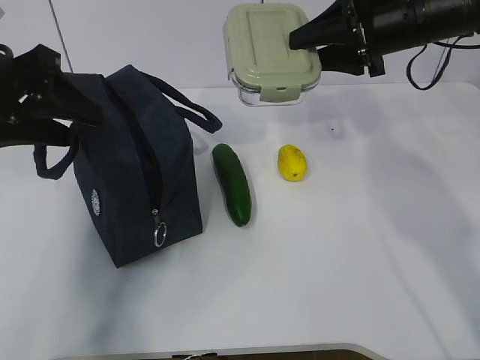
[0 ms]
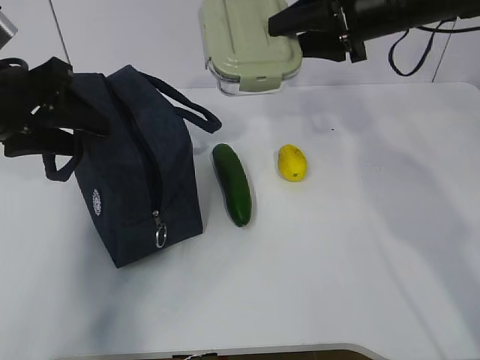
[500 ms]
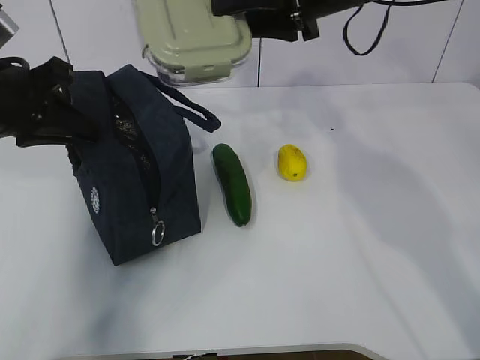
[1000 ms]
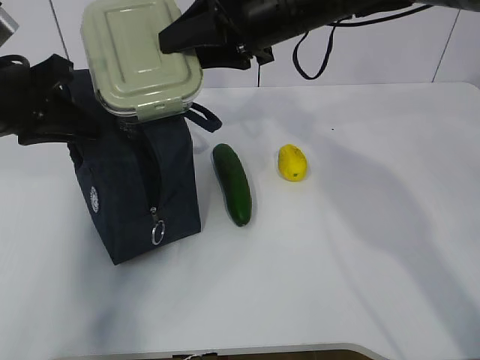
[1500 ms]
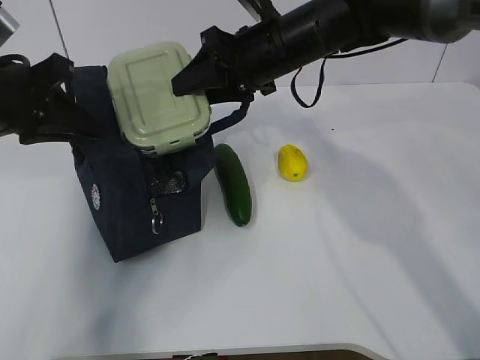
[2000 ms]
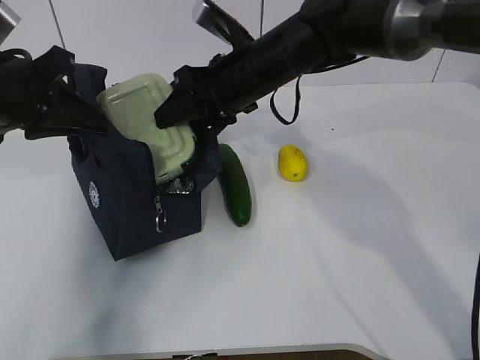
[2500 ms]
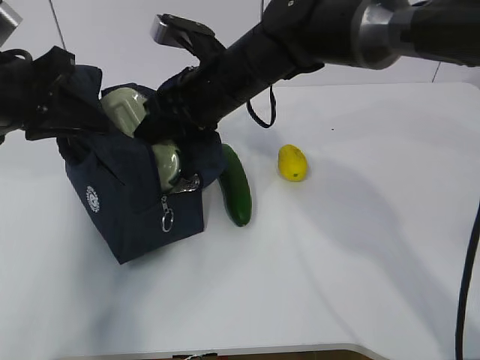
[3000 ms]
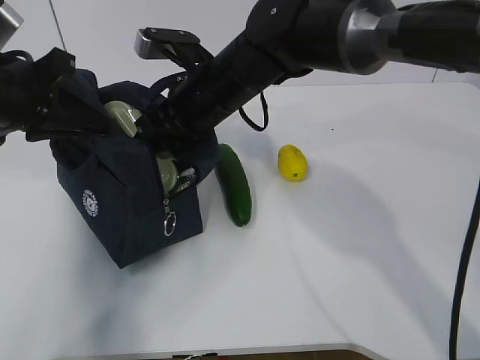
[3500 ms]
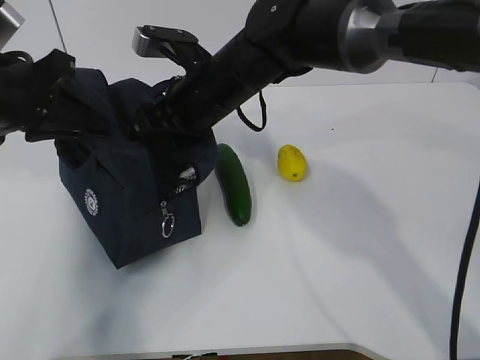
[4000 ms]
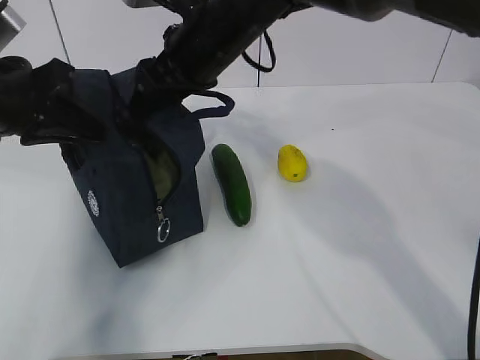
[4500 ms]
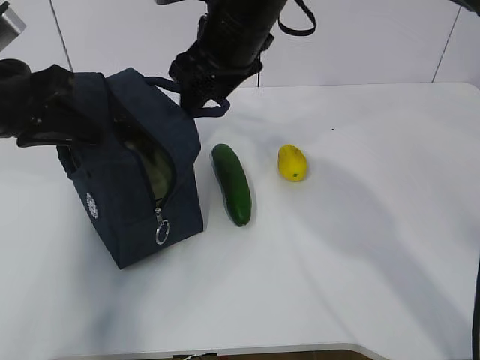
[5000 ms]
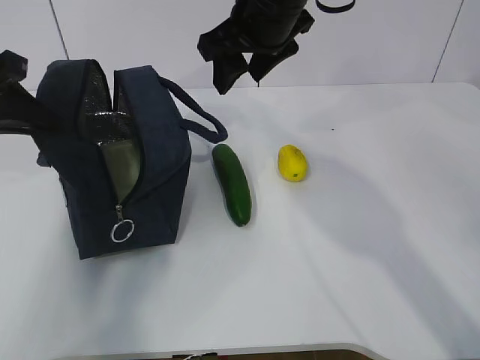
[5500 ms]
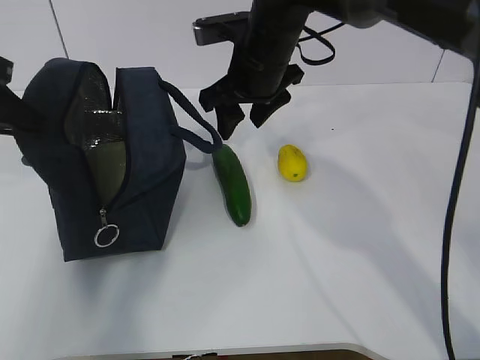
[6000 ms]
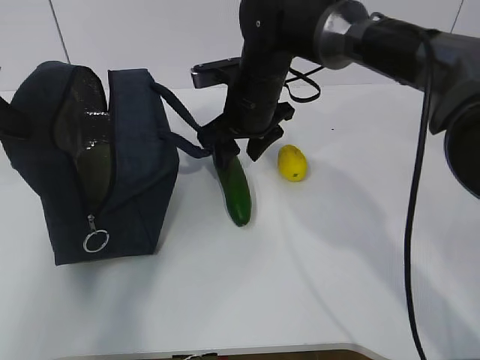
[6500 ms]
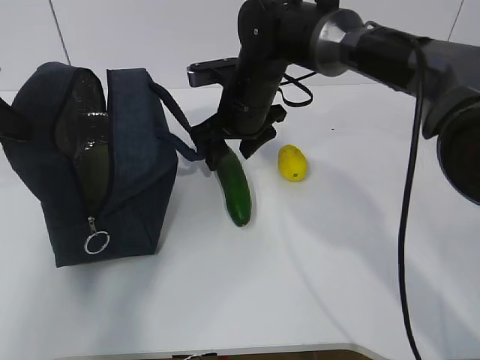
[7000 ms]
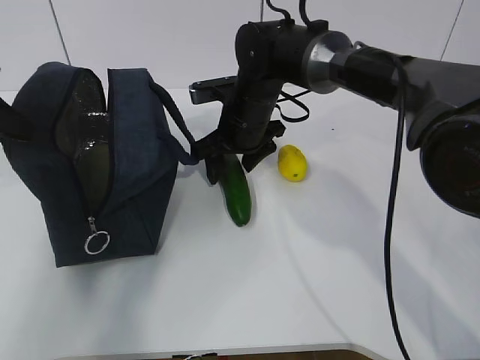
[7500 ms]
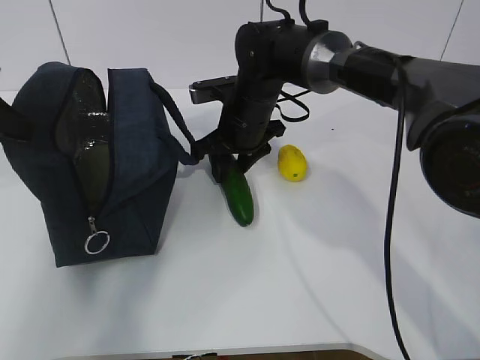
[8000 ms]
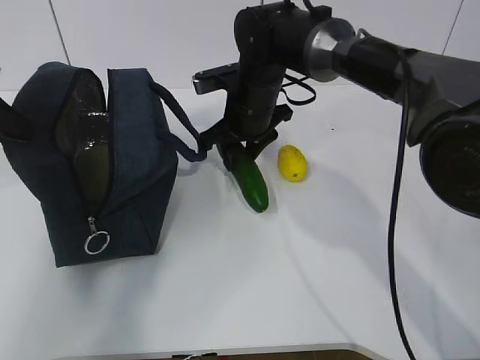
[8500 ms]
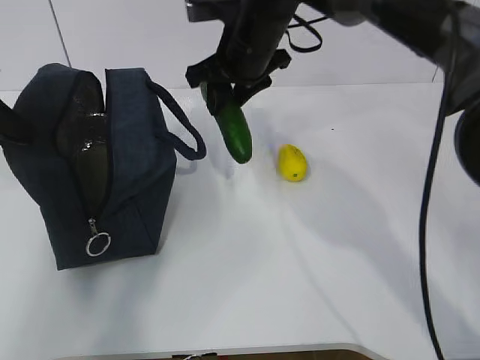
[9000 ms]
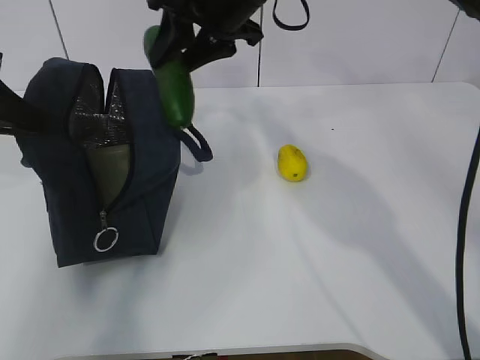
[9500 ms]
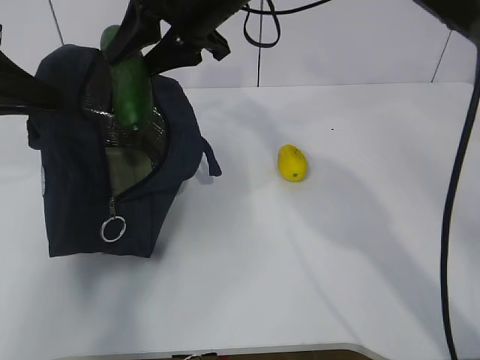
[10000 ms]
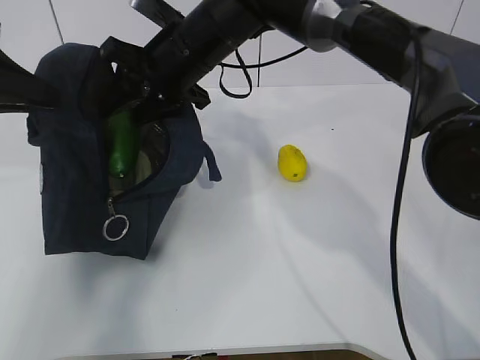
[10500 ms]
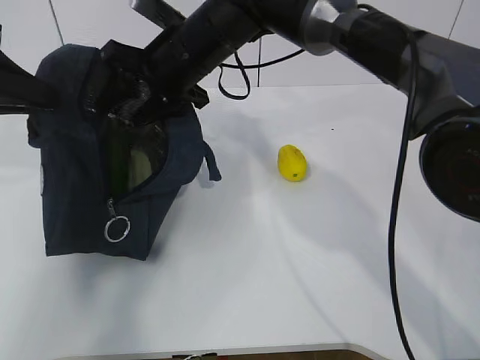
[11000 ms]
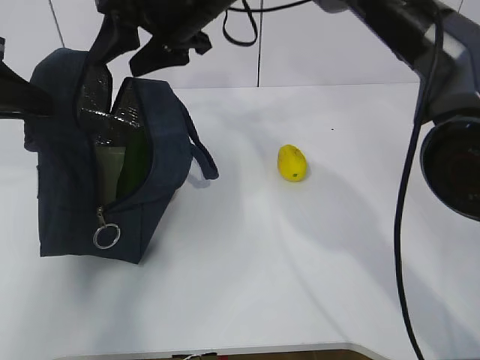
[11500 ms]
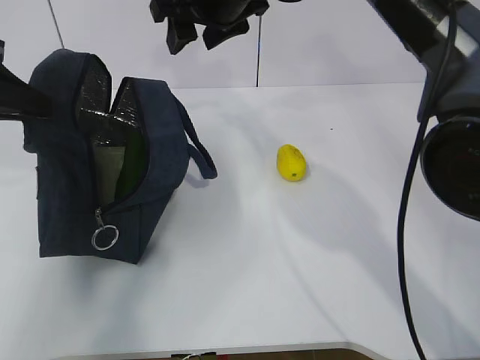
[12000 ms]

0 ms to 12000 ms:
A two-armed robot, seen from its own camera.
Step, 1000 ms to 4000 ms: Grab the cucumber with your right hand.
Step, 4500 ms to 6500 ms: Place it into the bag with your right hand.
Step, 7000 ms to 10500 ms: Grab the lemon with your right hand.
0 ms to 2000 ms: The right gripper heads to the left, covering roughly 15 cm. The left gripper closes.
2000 ms to 4000 ms: The right gripper travels to the left by about 10 cm.
4000 ms to 6000 ms: The left gripper travels to the left by about 5 cm. The right gripper goes roughly 5 cm to the right, and reaches some 10 cm upward, then returns.
6000 ms to 8000 ms: The right gripper heads downward, covering about 10 cm.
8000 ms to 10000 ms: The right gripper goes roughly 15 cm upward.

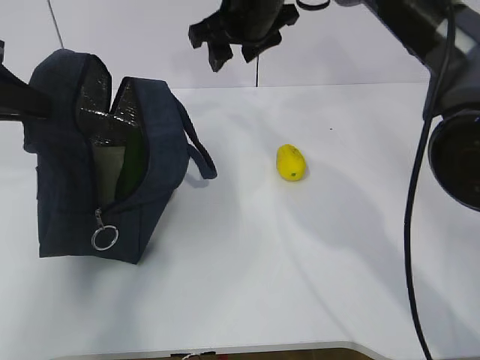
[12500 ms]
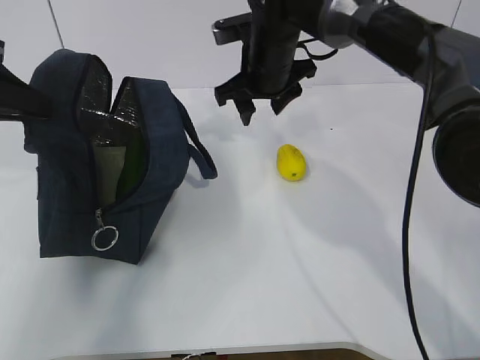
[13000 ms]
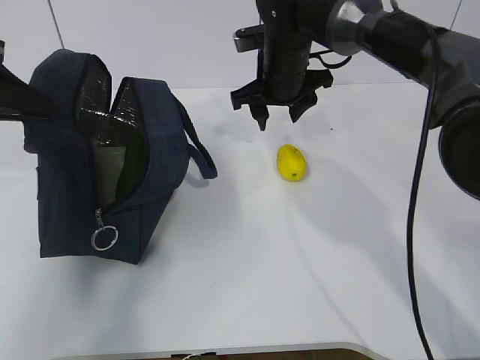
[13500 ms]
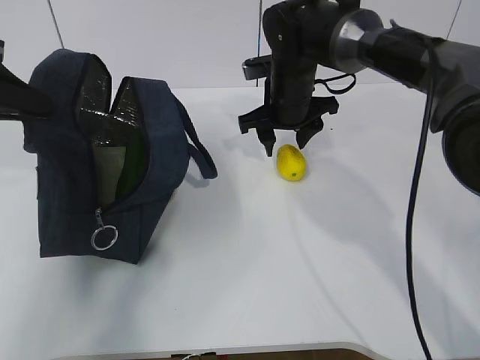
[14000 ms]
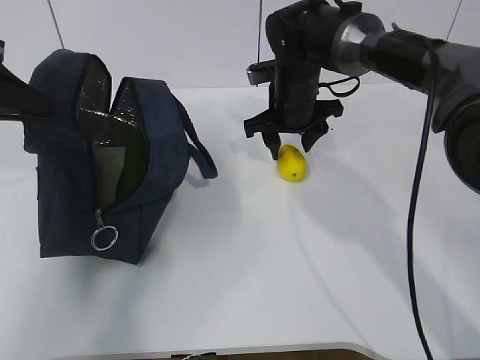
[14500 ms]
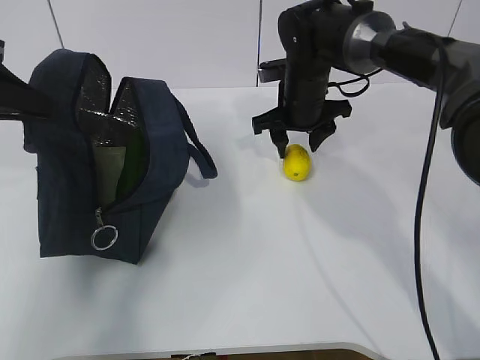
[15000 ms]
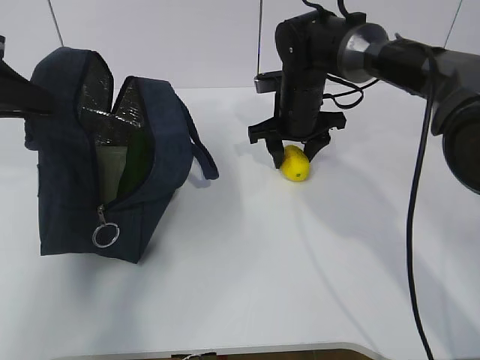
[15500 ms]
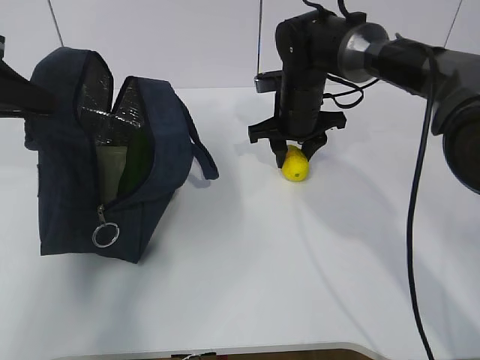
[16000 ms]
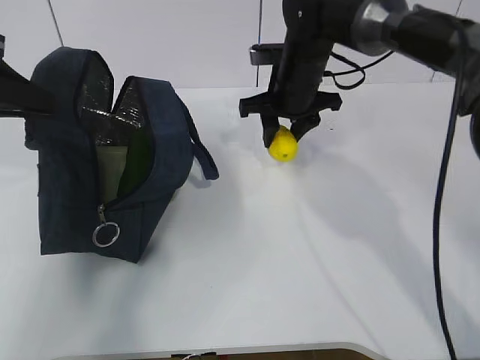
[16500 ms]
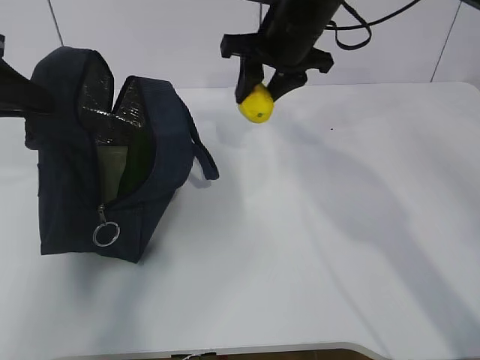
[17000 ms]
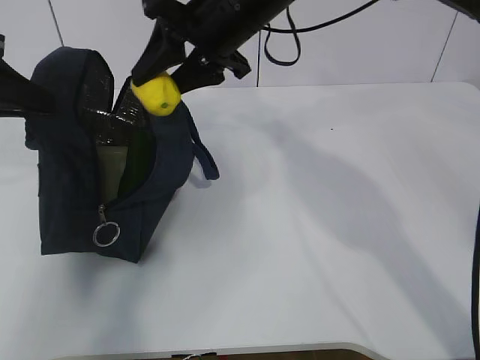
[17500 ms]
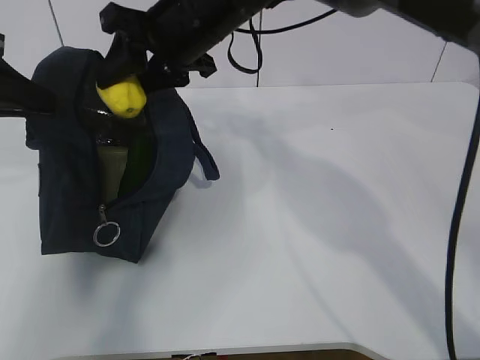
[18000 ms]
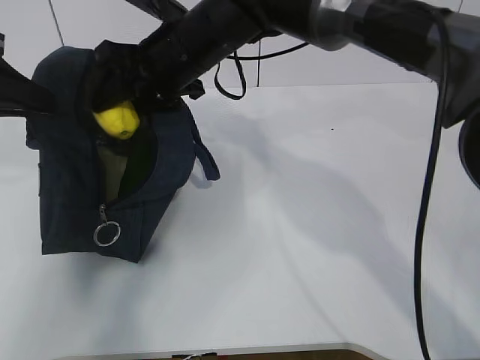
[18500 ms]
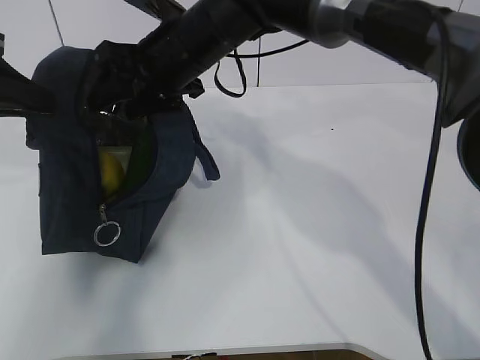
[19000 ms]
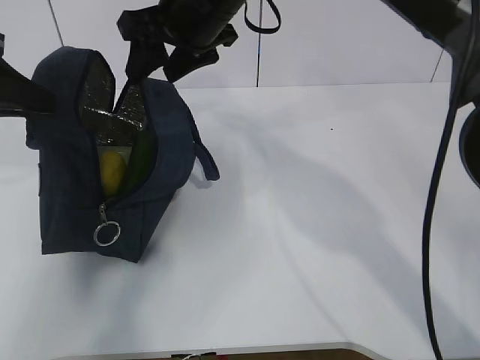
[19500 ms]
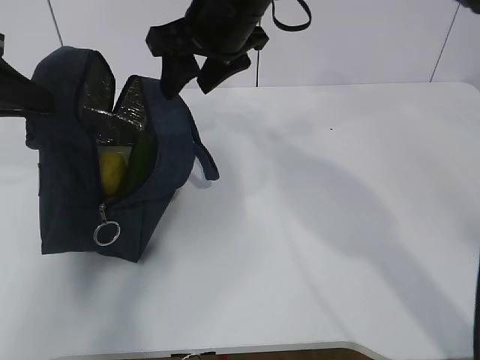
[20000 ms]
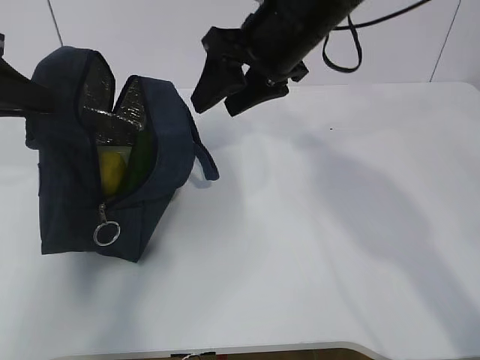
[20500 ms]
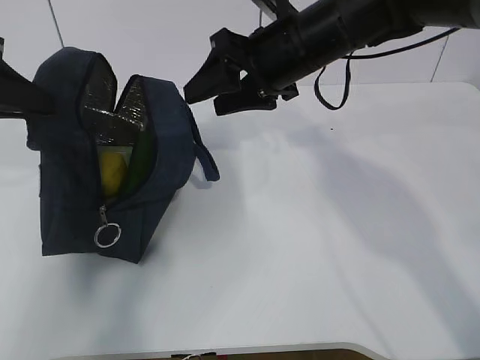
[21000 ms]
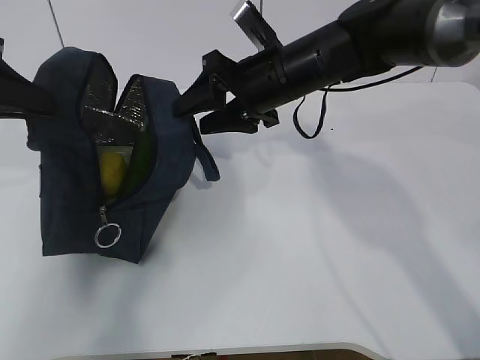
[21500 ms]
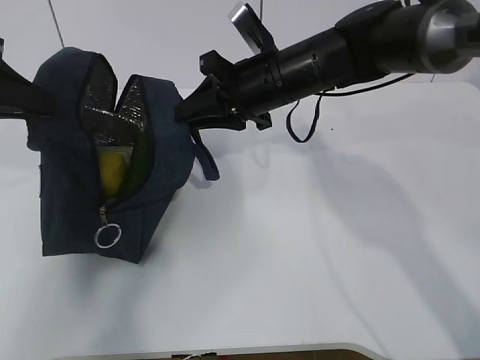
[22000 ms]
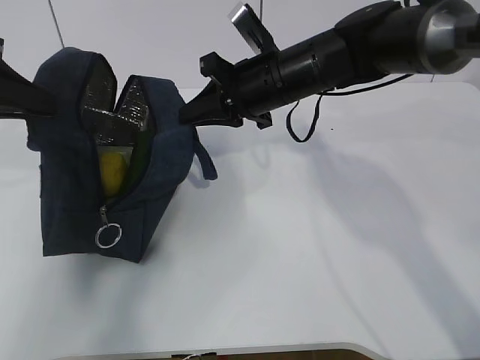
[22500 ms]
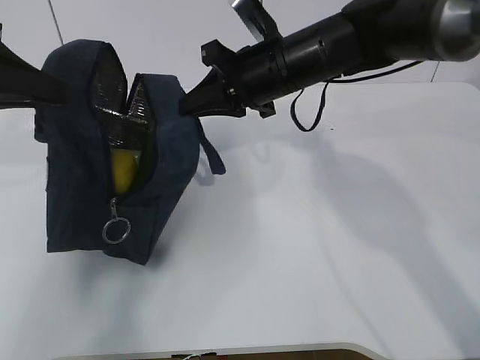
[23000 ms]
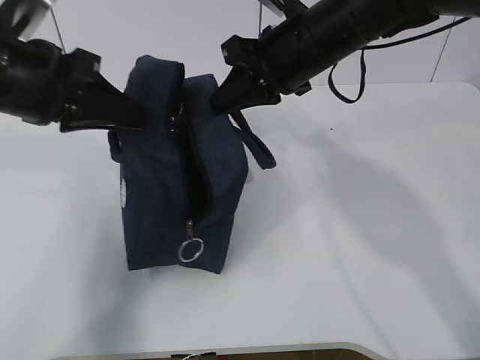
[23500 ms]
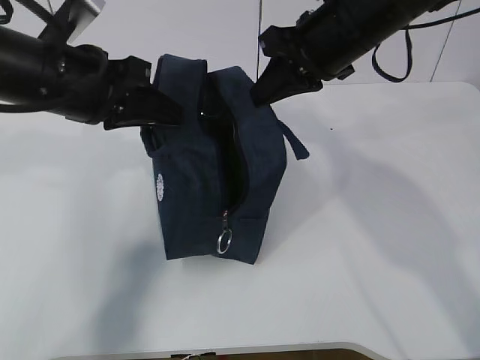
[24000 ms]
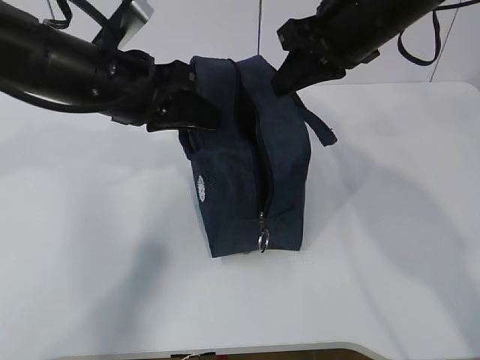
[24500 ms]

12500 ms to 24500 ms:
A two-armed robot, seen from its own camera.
Step, 13500 ms to 15500 ms: Grab the lunch bag with your right hand.
Step, 16500 ms to 18500 ms: Move the lunch bag to the right.
12500 ms to 14500 ms: The right gripper moves downward and to the right, roughly 15 cm.
14500 ms to 16500 ms: The grippers move only a little.
16500 ms to 18500 ms: The right gripper shifts roughly 15 cm to the left, upward and backward.
18500 ms to 20500 ms: The right gripper shifts about 10 cm to the right.
20500 ms to 22500 ms: The right gripper travels downward by roughly 5 cm, and closes.
22500 ms to 24500 ms: The right gripper travels upward and to the right by about 10 cm; the left gripper travels to the right by roughly 15 cm.

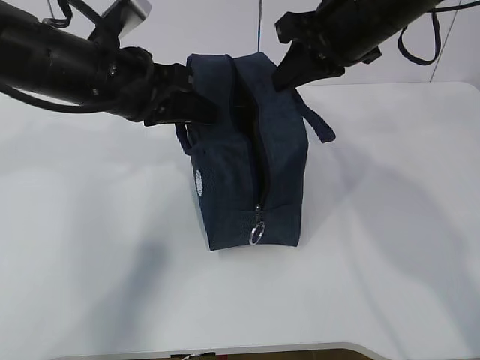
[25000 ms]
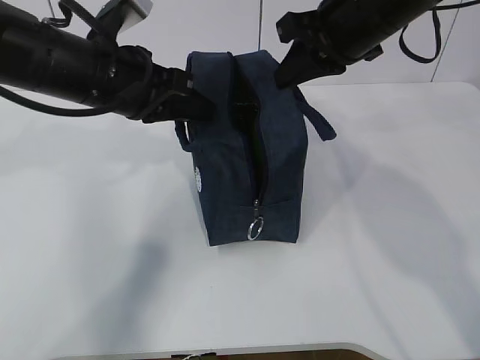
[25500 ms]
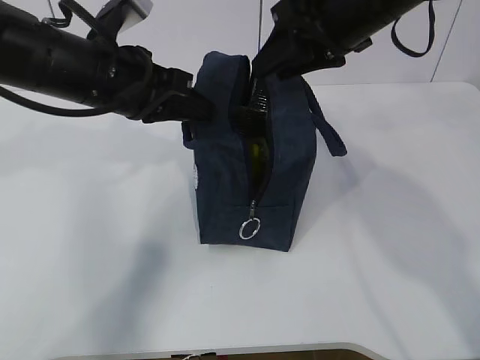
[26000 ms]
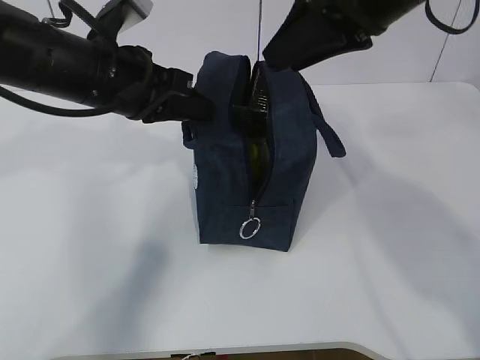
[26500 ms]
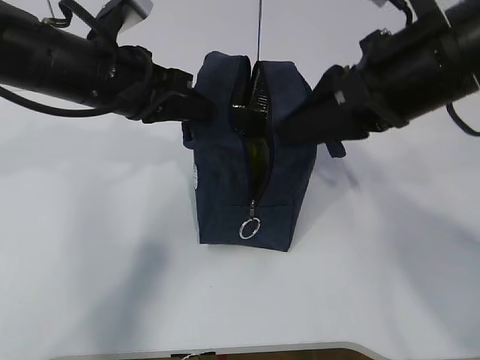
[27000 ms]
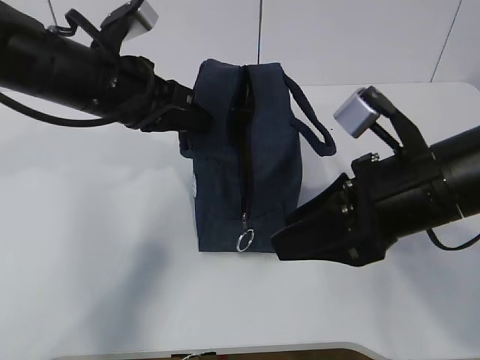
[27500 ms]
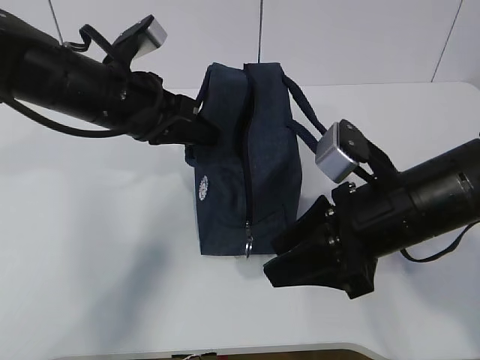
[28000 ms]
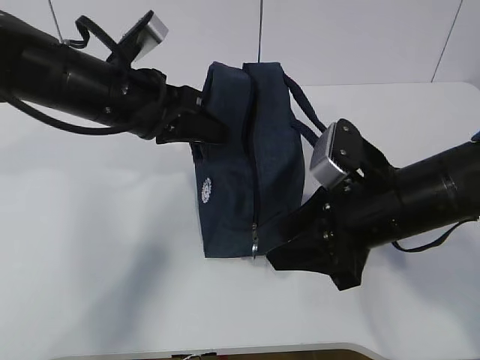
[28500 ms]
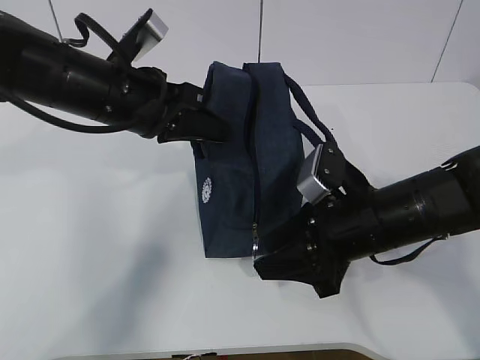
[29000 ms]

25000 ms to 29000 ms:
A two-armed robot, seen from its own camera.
25000 ms to 27000 ms: The right gripper is displaced backward by approximately 10 cm, and opens up.
27000 ms to 29000 ms: The right gripper is displaced downward by some 15 cm.
